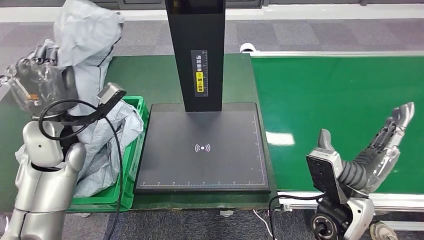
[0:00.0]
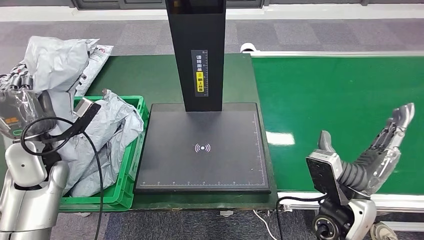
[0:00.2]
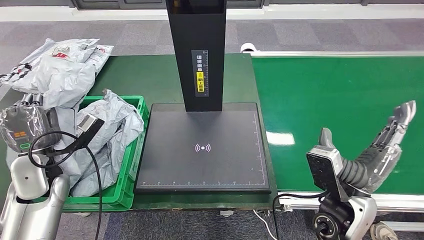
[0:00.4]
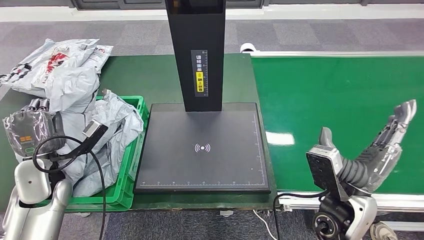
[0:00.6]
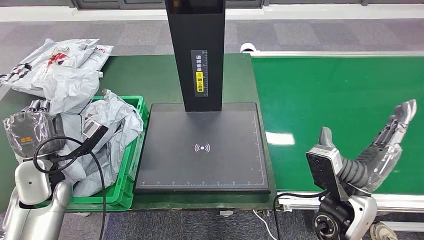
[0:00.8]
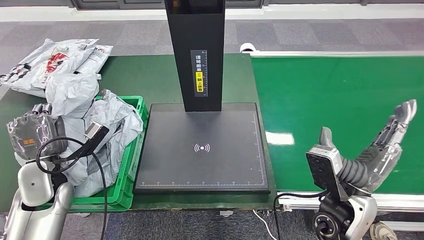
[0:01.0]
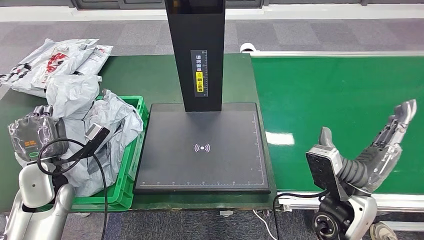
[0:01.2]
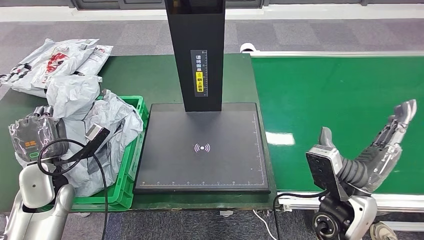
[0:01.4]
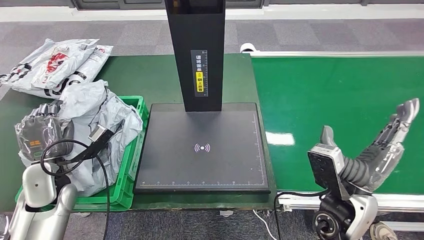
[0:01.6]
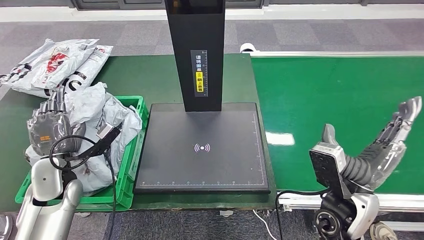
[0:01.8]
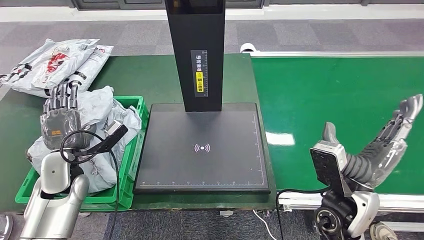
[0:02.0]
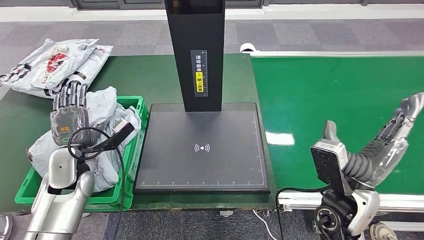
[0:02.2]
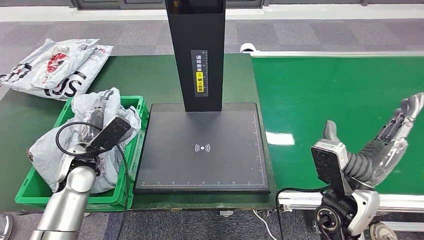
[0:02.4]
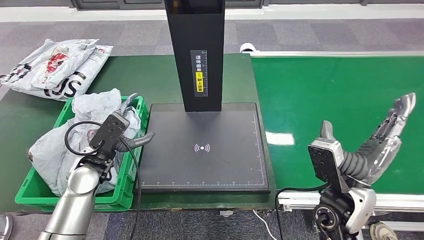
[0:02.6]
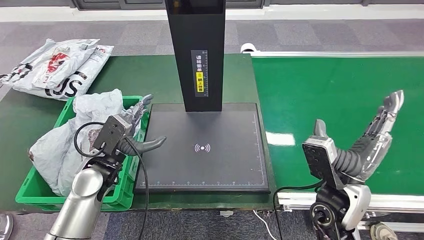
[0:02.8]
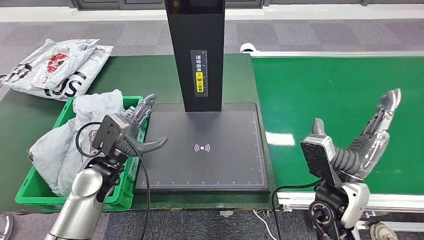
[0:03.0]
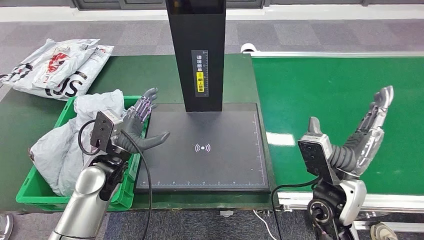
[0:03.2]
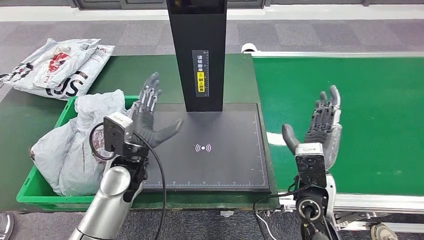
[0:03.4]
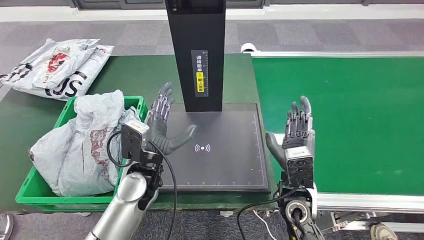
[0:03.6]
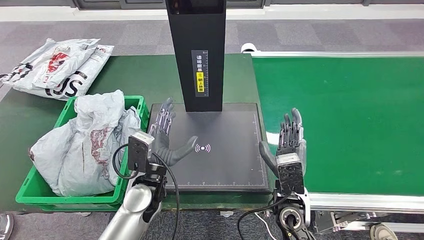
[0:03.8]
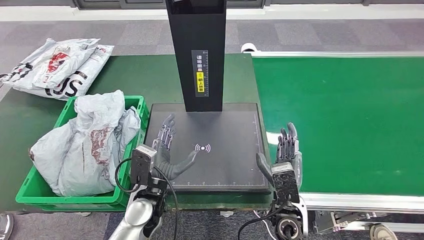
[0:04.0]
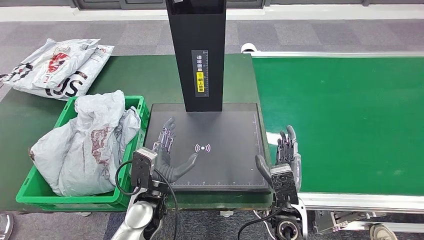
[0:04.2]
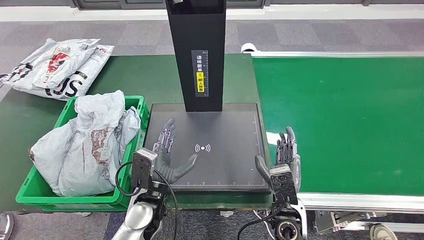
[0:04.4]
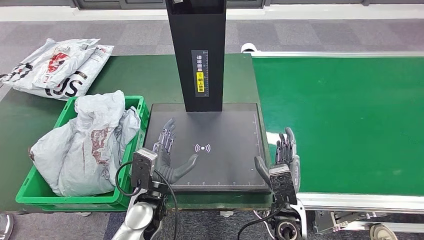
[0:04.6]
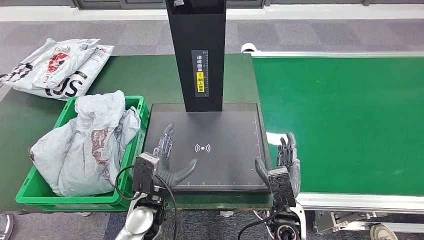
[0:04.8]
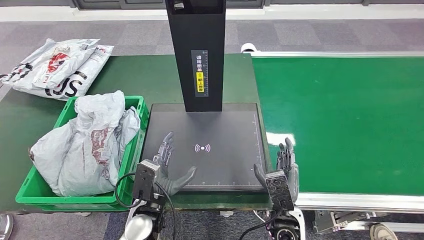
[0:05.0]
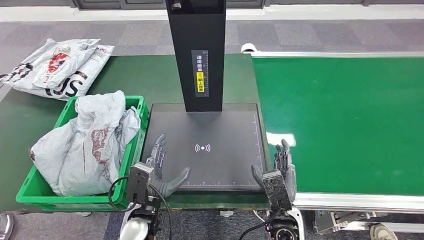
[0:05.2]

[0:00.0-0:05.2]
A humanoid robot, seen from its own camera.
Step, 0:00.4 to 0:05.2: Place the parcel into the delivery box.
0:03.4 to 0:05.2: The left hand heads downward, backward and to the right, covering approximately 15 cm. Meanwhile the right hand moves downward, backward and to the left, approximately 15 cm.

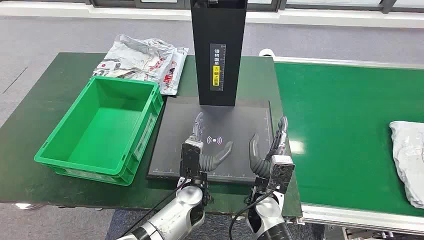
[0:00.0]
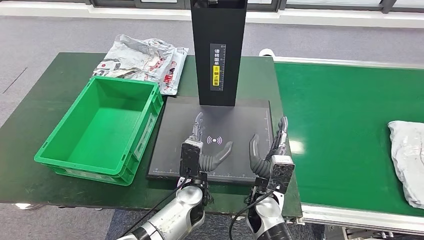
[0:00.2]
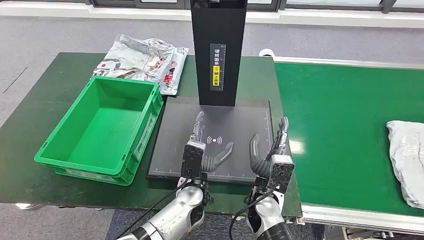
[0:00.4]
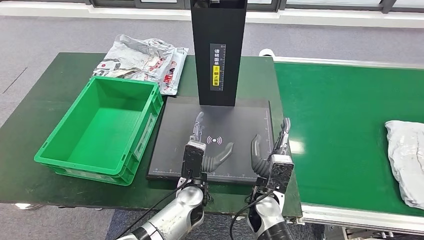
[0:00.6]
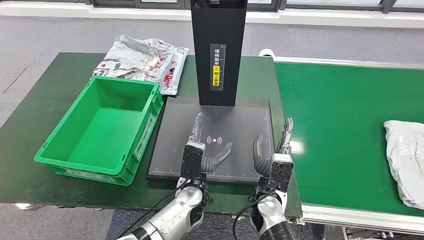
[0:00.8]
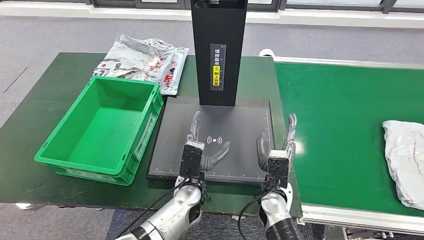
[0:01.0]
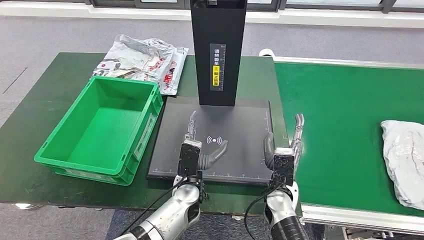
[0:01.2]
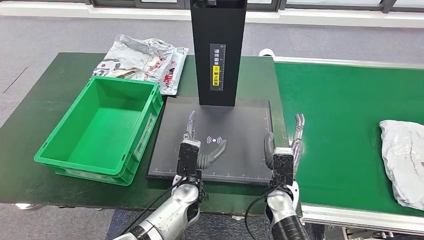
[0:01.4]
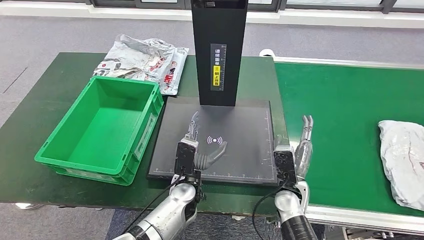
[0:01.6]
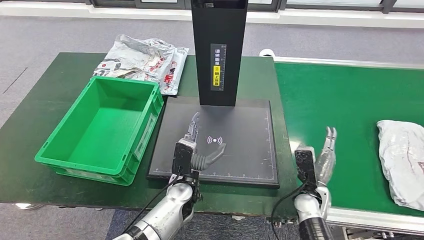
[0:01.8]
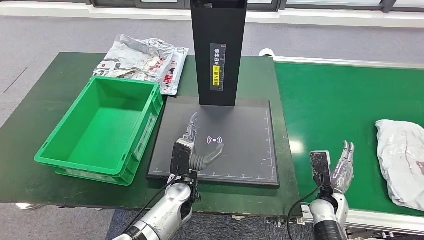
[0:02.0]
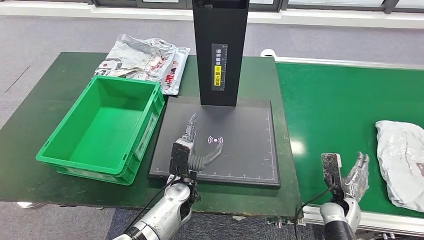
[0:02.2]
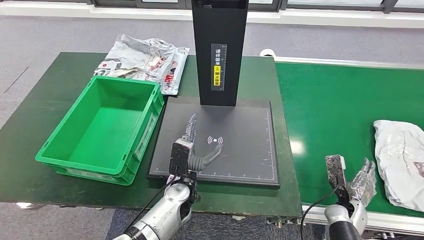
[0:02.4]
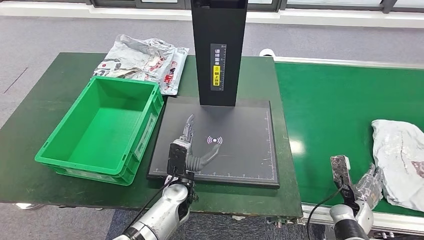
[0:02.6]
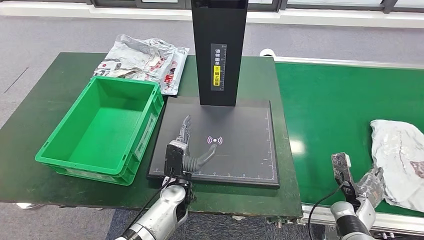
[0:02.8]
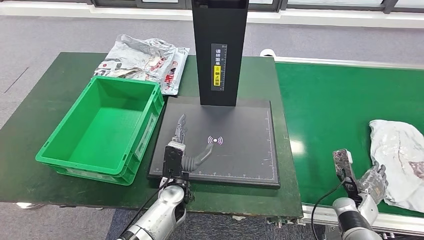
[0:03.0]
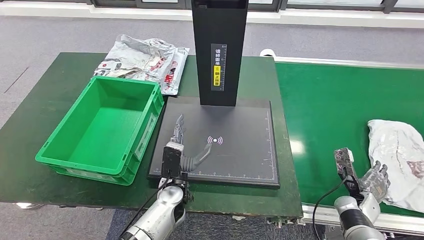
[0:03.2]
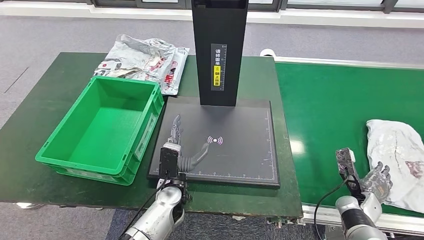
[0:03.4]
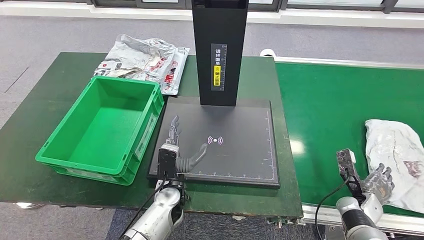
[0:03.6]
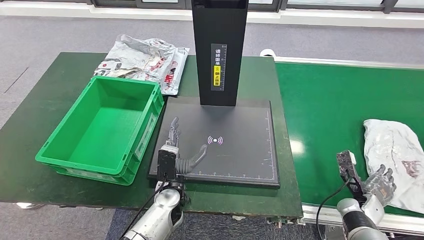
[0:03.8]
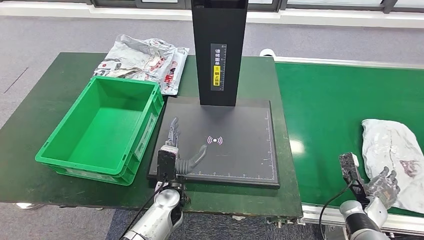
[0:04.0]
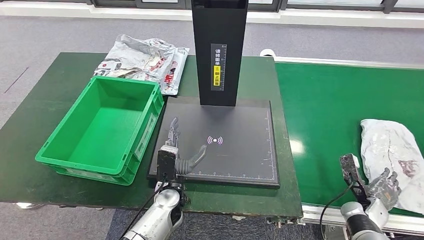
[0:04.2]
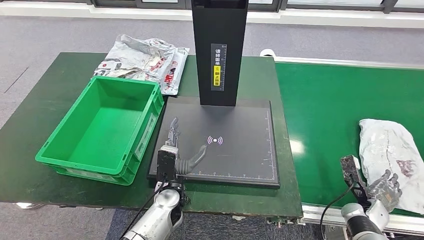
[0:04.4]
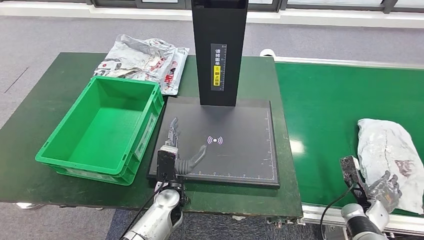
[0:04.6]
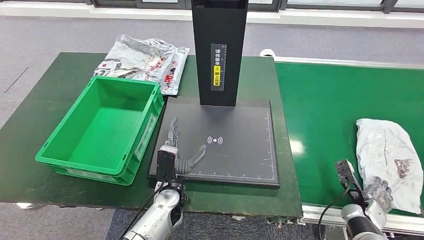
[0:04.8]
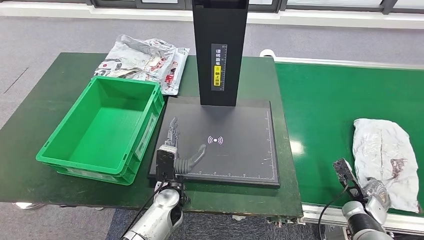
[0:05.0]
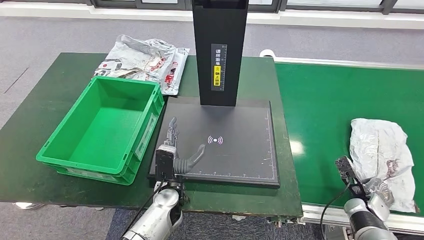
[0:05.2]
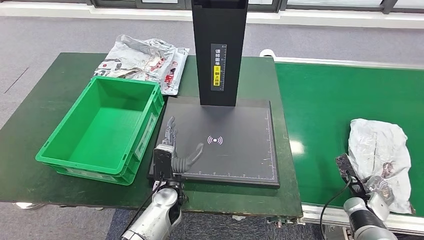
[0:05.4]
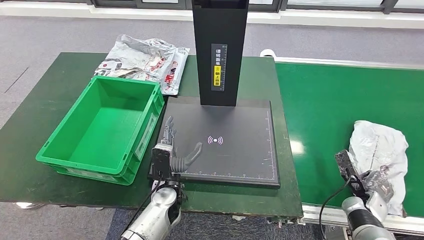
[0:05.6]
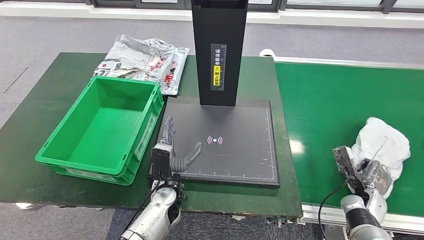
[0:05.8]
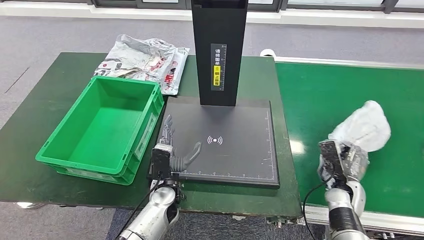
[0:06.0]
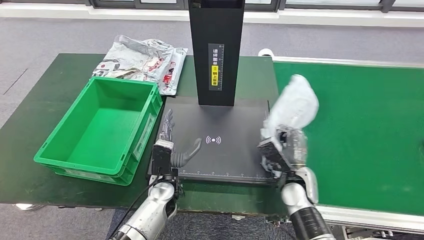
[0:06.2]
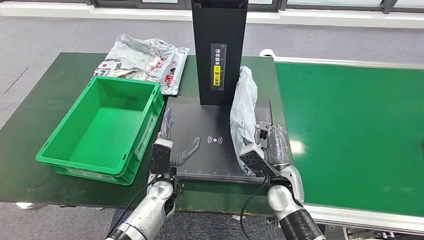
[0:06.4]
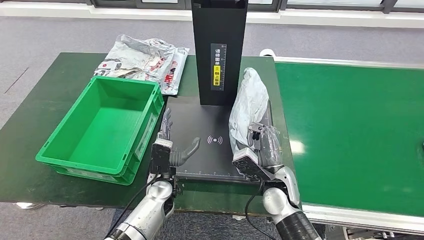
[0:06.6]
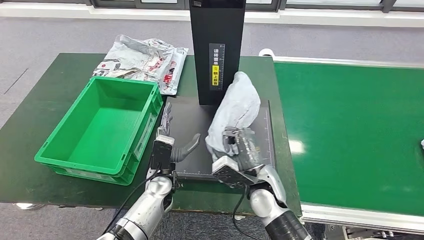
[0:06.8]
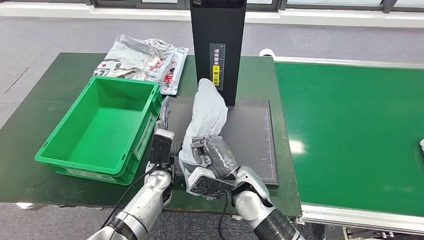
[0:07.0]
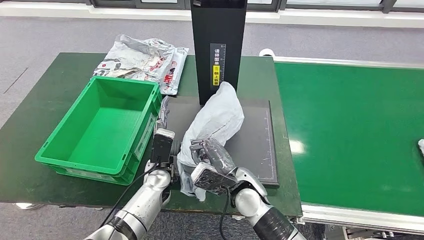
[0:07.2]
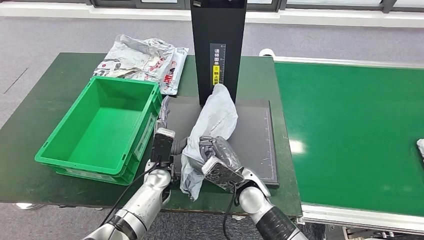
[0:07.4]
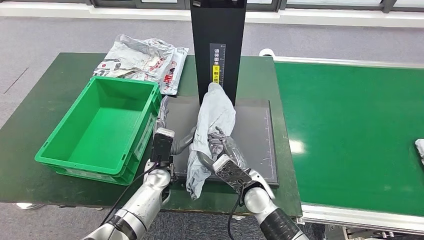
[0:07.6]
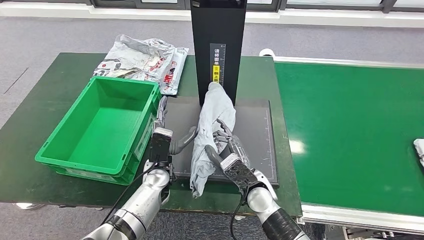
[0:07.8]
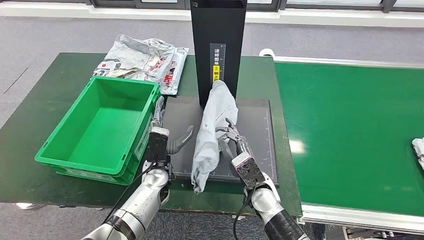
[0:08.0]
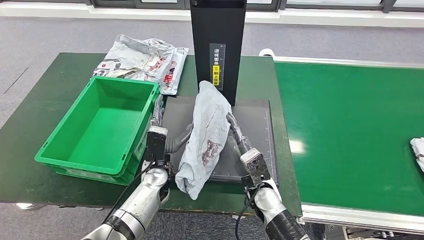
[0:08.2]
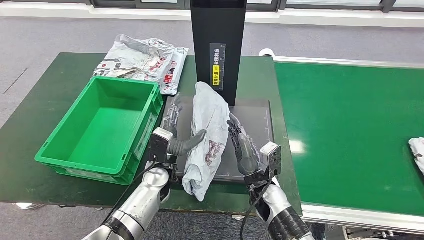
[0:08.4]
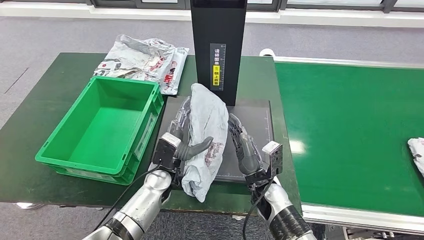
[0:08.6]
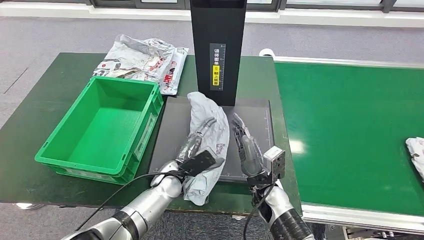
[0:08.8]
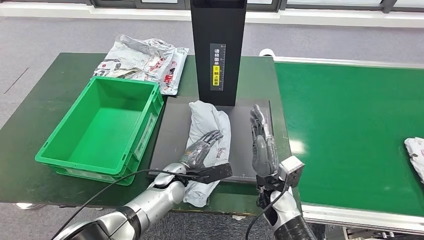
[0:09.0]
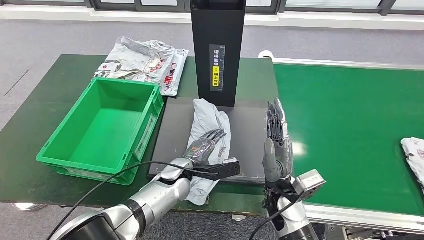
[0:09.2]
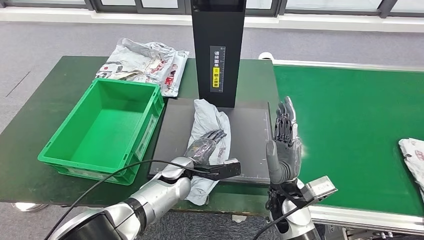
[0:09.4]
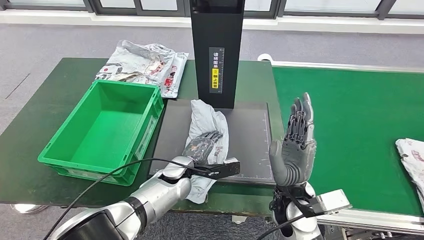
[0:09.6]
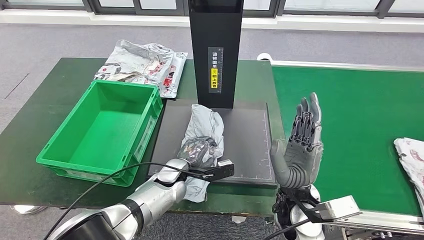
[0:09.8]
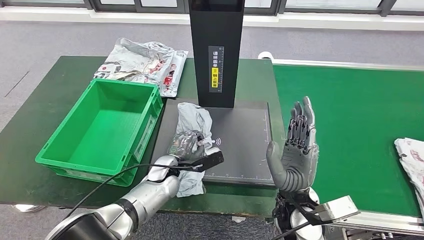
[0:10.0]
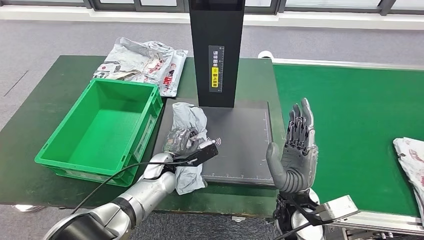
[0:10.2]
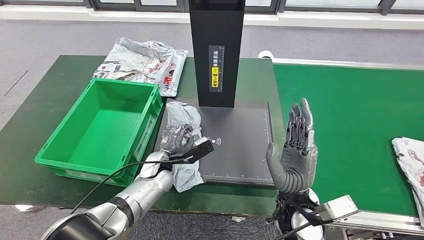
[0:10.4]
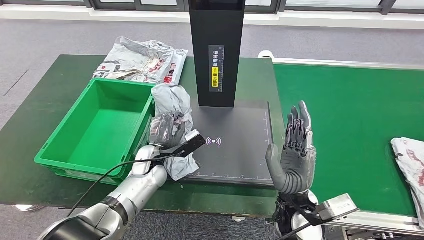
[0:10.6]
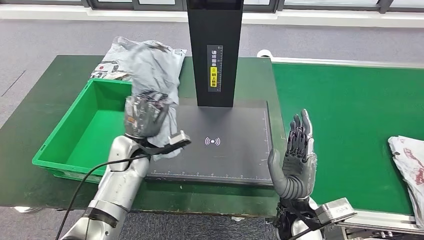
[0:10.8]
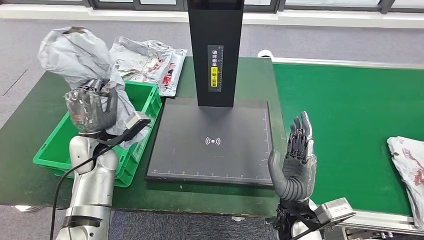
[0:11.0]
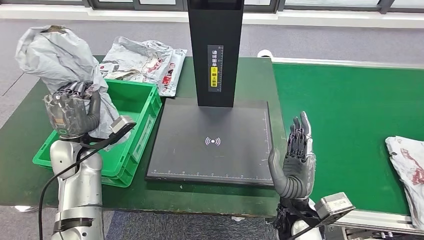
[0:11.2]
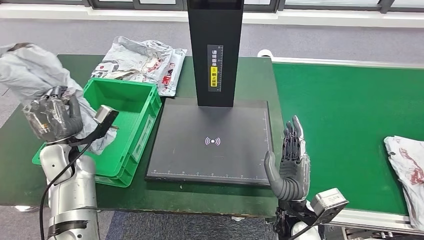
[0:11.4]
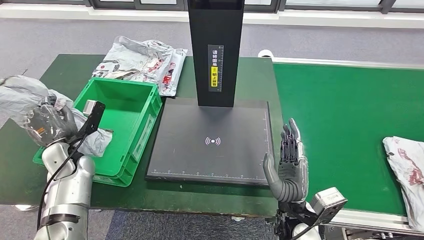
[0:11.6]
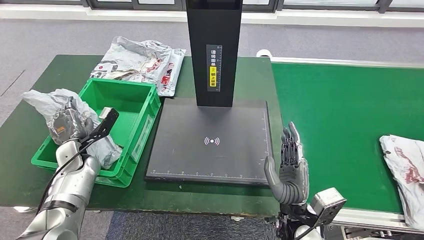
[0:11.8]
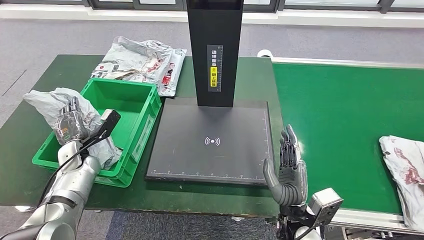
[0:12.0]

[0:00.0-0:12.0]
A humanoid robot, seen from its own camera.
Step, 0:00.0 to 0:06.8: Take the parcel off the conveyor belt.
Step, 0:07.0 to 0:09.6: Place the parcel onto the inbound machine.
Step, 0:09.8 to 0:11.6: Pick up the parcel from the inbound machine.
0:01.6 to 0:03.0: The right hand is displaced to the right by some 20 cm.
0:03.0 to 0:04.4: The hands move only a little.
0:04.4 to 0:06.0: The right hand travels to the left by some 5 cm.
